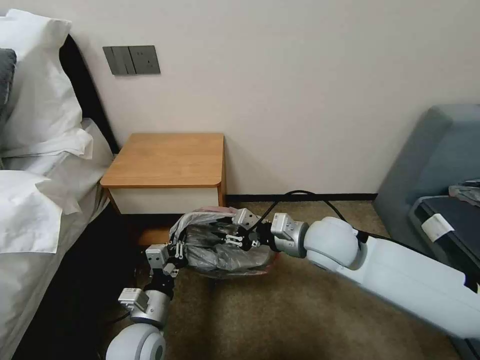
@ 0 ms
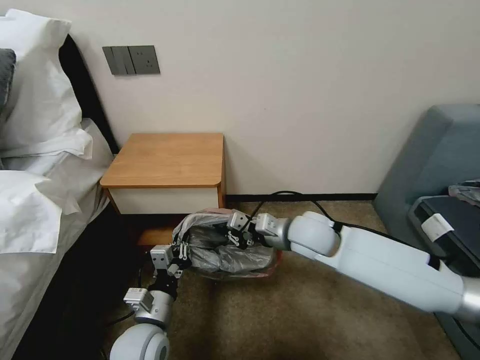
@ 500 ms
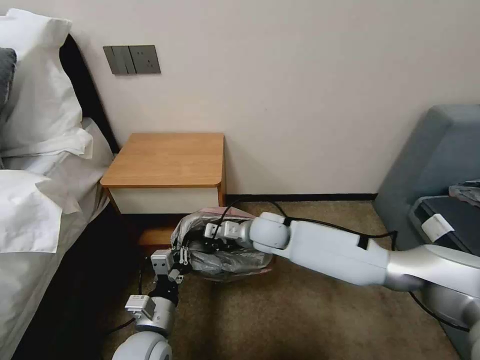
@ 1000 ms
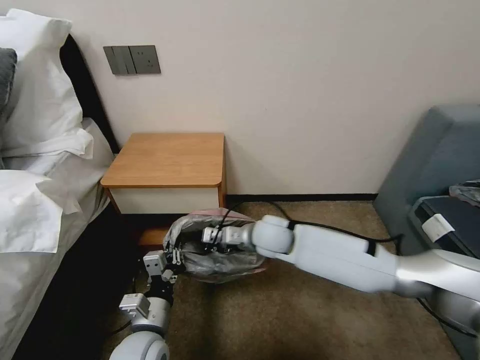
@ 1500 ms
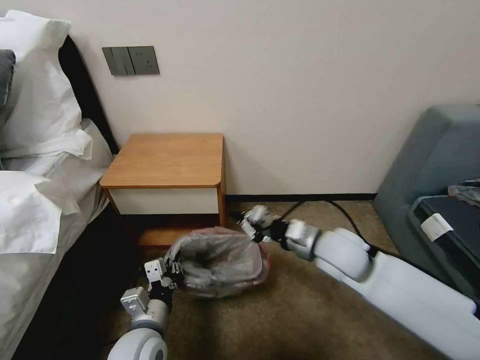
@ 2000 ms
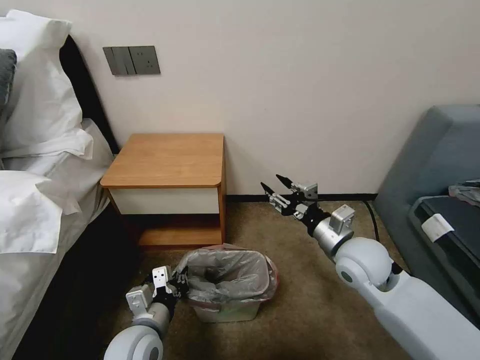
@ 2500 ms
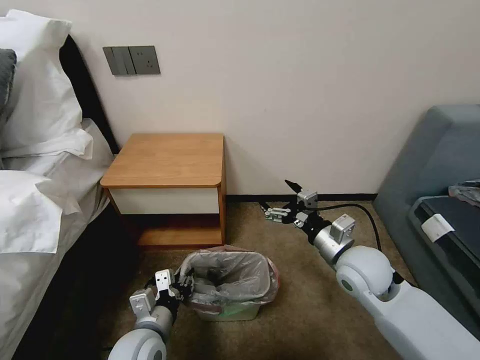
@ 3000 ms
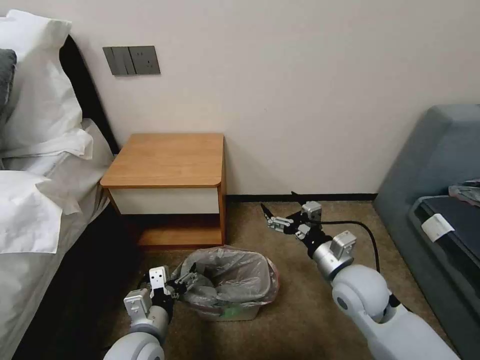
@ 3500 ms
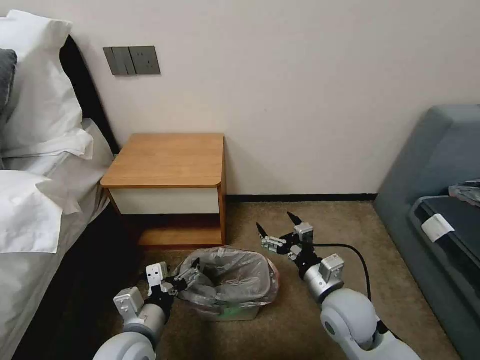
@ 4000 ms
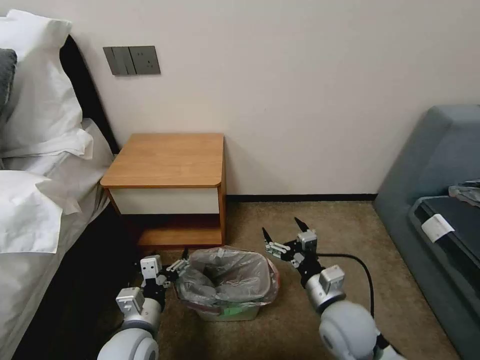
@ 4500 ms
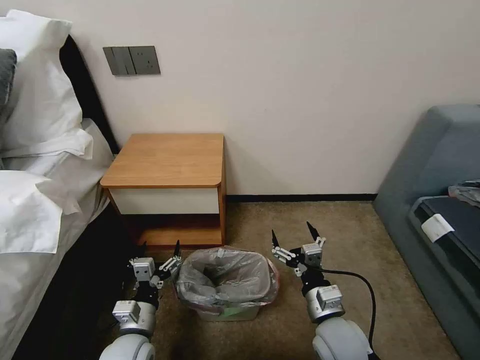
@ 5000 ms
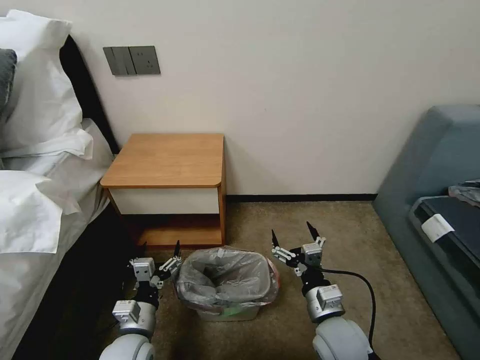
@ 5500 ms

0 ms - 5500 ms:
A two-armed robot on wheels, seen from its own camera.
Task of the whole recording: Pick up the garbage bag from the table and place it over the trash can.
0 ms - 2000 ms: The right gripper travels to the left and back again, roughly 10 cm each way.
2000 ms - 3500 ms: The right gripper ends up approximately 5 cm from where it was, and opens up. The left gripper opens.
3500 ms - 5500 ms: The left gripper goes approximately 5 cm downward. Meanwhile the right gripper is displaced backward and downward by about 10 cm.

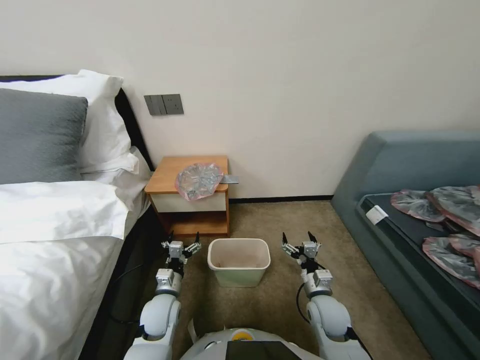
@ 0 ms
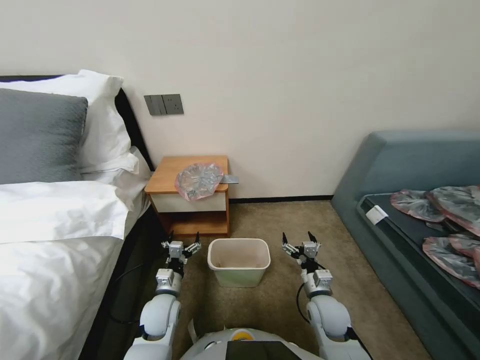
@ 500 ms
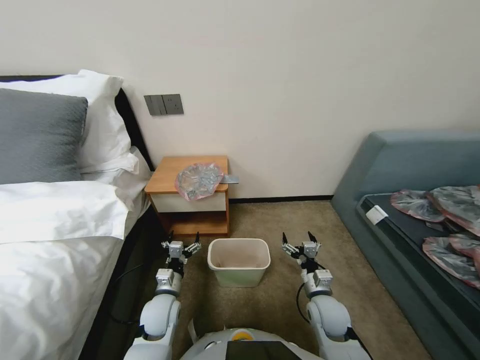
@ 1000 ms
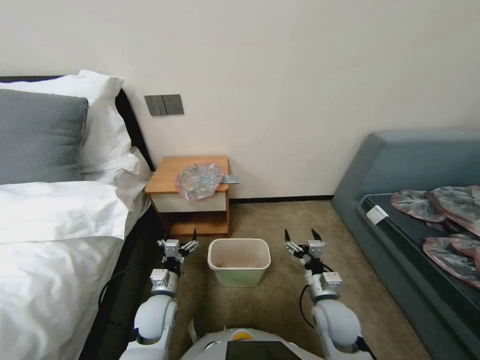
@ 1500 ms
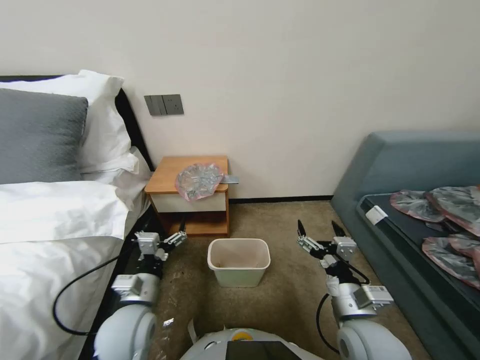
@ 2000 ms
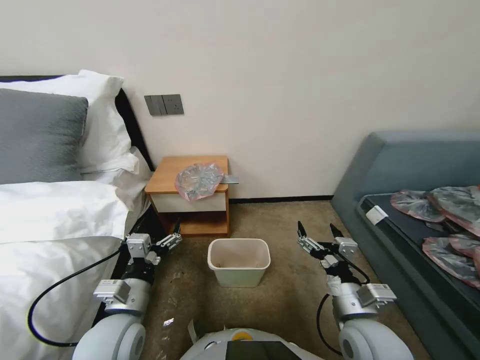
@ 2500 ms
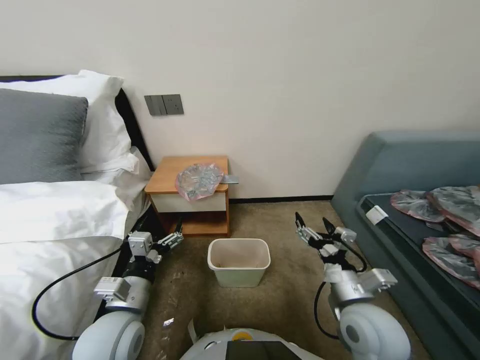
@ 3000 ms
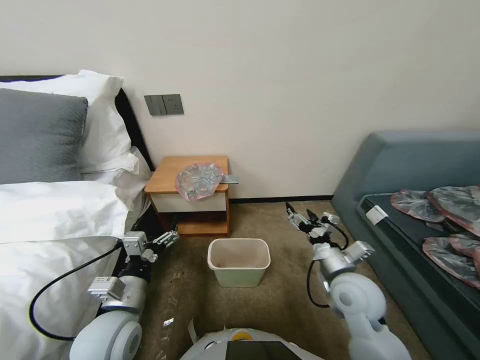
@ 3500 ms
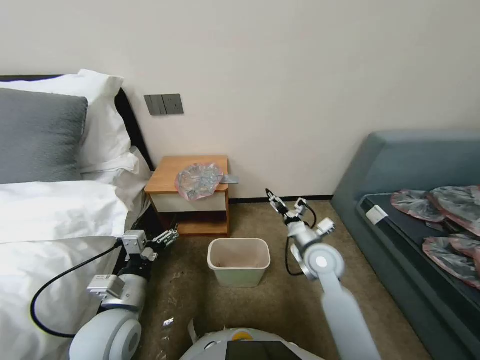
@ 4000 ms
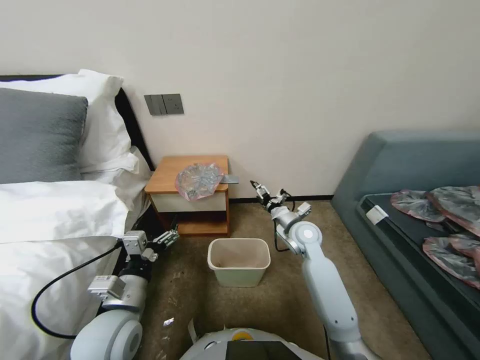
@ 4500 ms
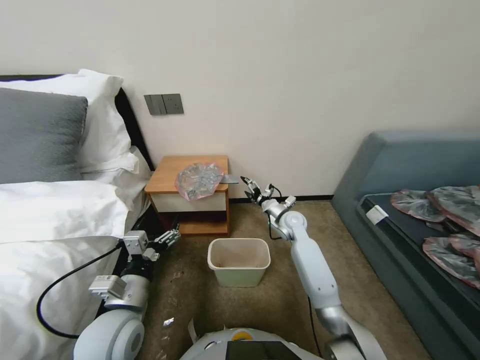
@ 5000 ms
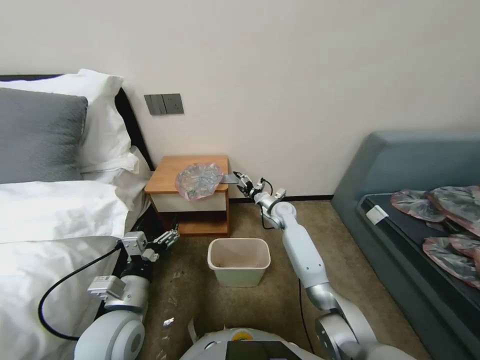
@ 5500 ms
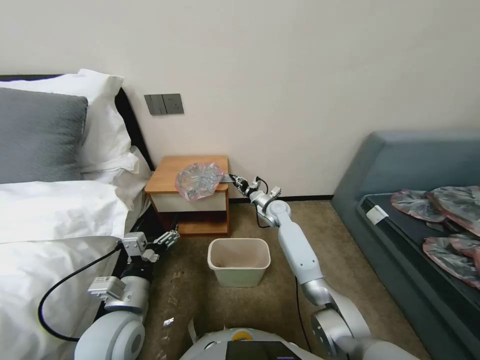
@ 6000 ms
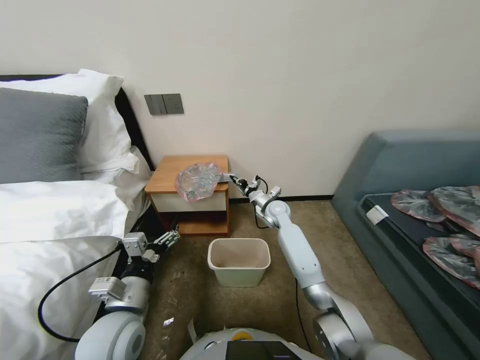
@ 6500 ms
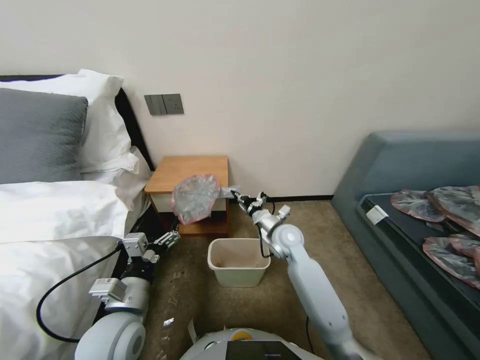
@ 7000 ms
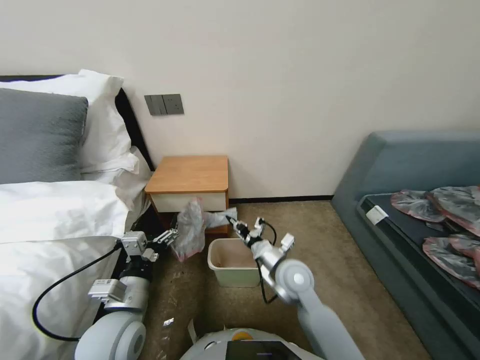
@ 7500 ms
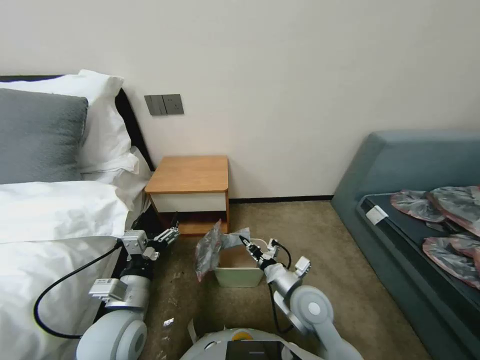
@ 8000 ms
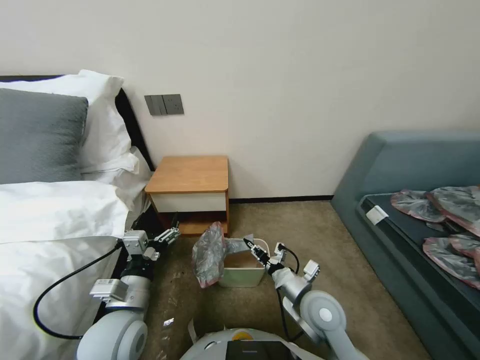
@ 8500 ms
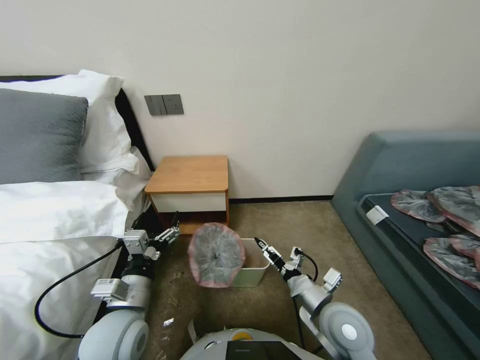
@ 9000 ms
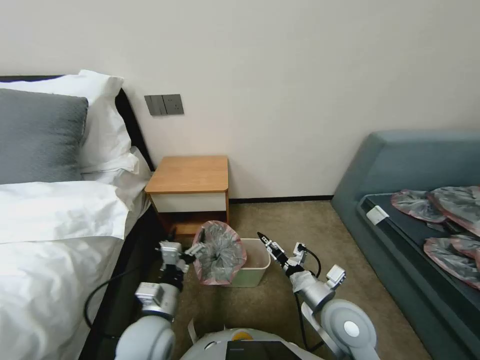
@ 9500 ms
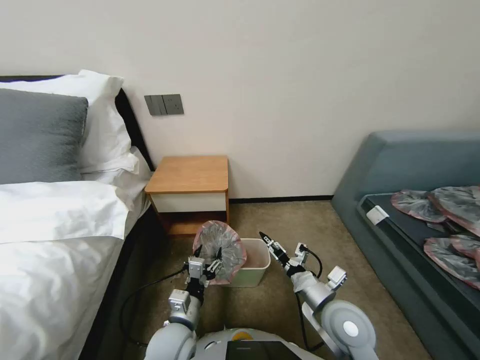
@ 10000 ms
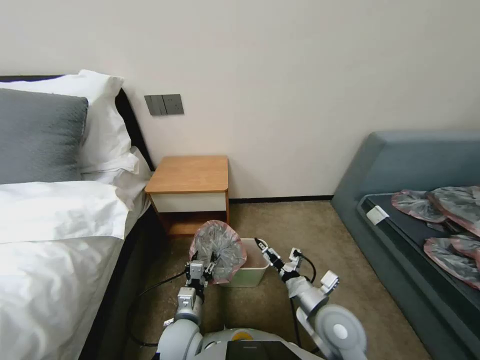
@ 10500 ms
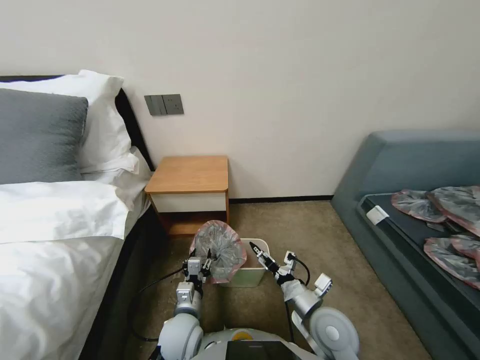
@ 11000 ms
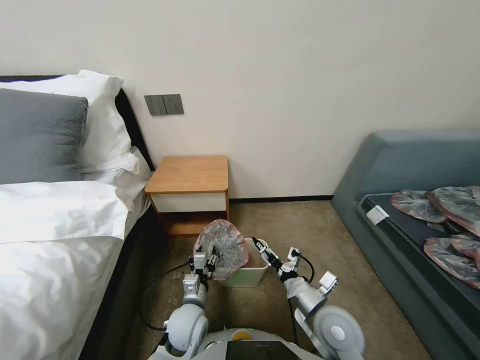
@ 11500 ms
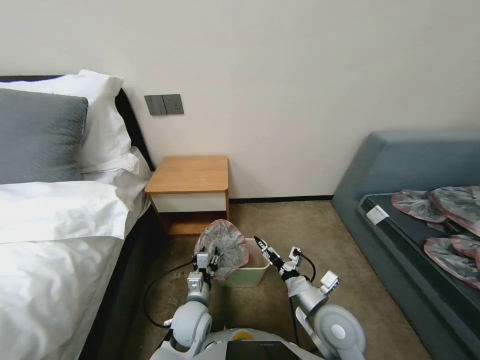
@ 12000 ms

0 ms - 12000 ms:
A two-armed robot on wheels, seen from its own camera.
Task of the whole recording: Pick up the garbage bag from the table and place it over the trash can.
2000 ms - 4000 ms: The left gripper travels upward by approximately 5 cm; the right gripper heads forward, covering about 15 cm.
4000 ms - 6000 ms: The right gripper travels forward by some 25 cm, and closes up.
6000 ms - 8000 ms: The right gripper moves backward, some 30 cm, and closes its fingers.
8000 ms - 10000 ms: The right gripper shifts some 5 cm to the right, and opens up; the left gripper moves downward and to the right, roughly 10 cm.
10000 ms - 12000 ms: The left gripper heads downward and forward, covering approximately 10 cm.

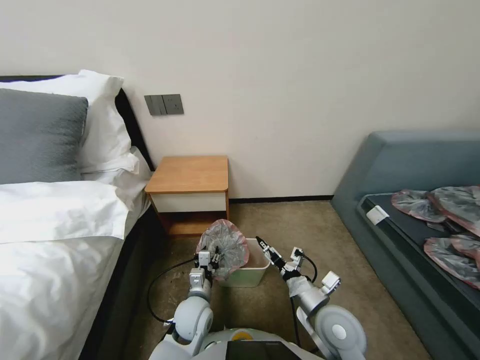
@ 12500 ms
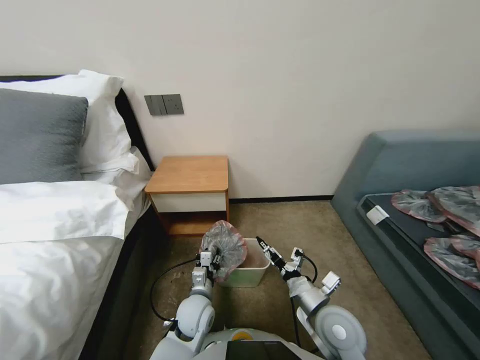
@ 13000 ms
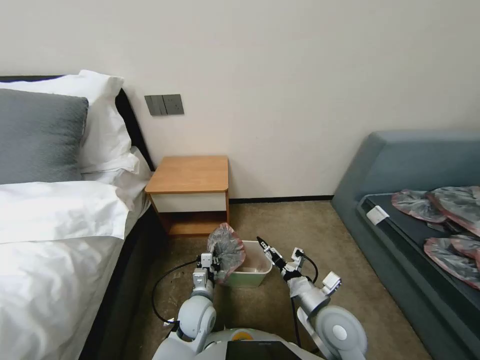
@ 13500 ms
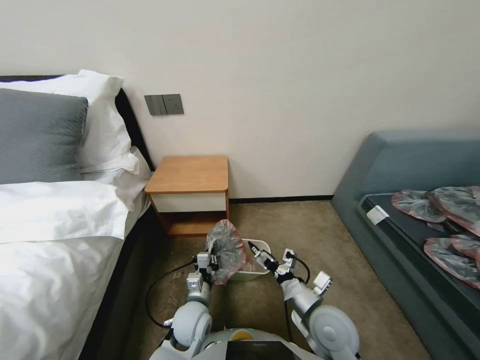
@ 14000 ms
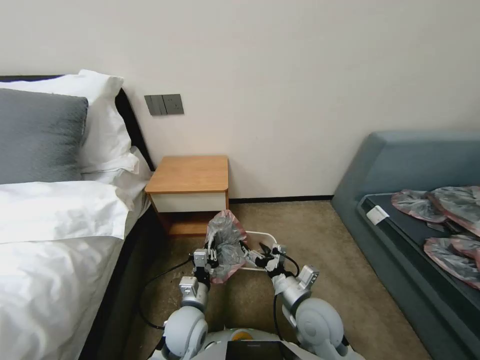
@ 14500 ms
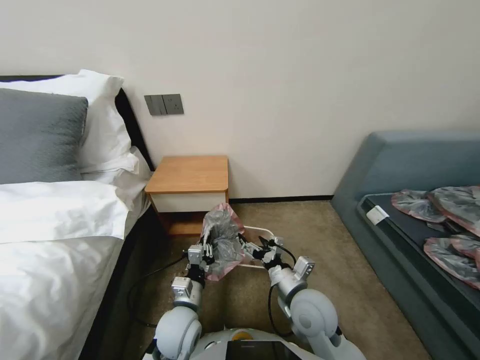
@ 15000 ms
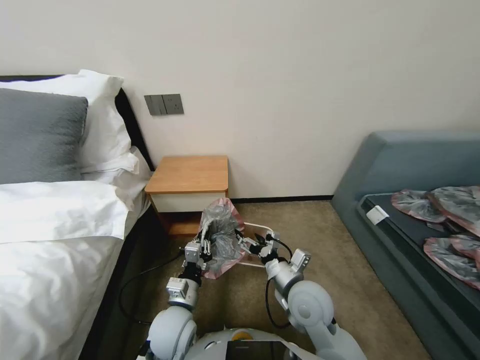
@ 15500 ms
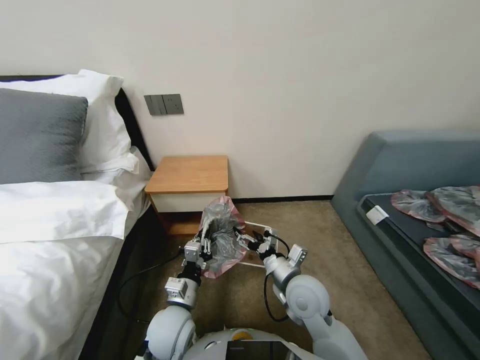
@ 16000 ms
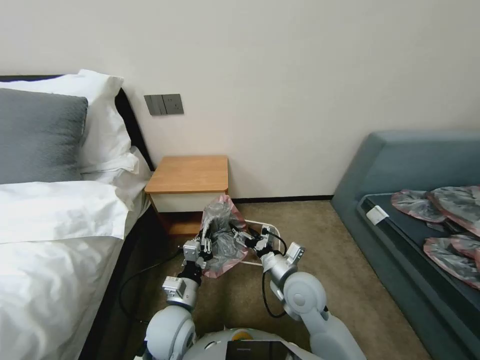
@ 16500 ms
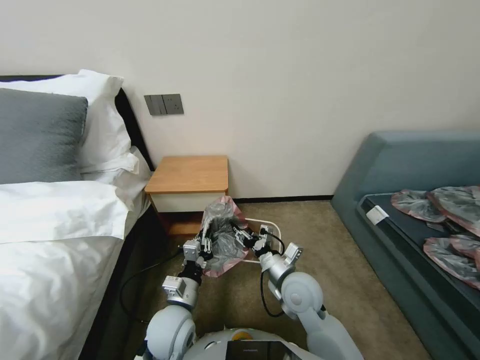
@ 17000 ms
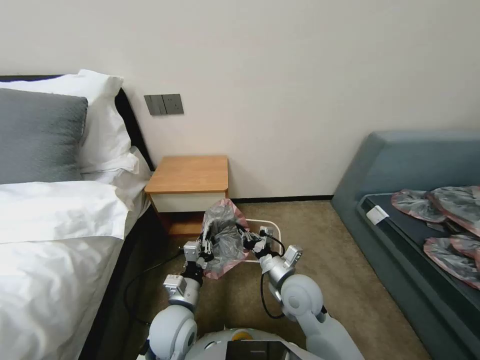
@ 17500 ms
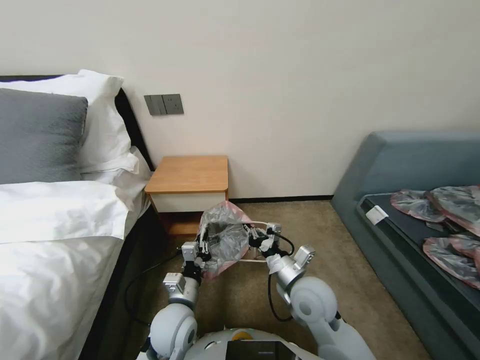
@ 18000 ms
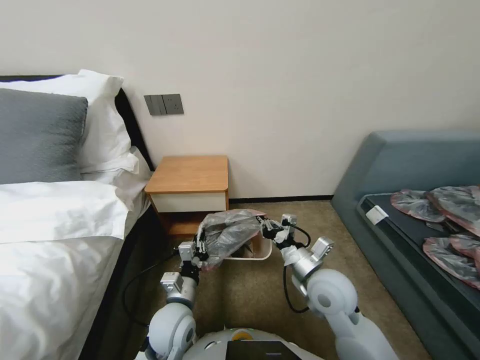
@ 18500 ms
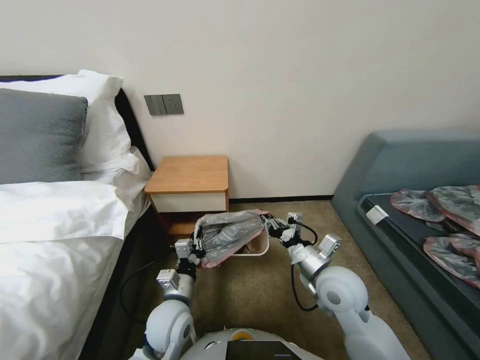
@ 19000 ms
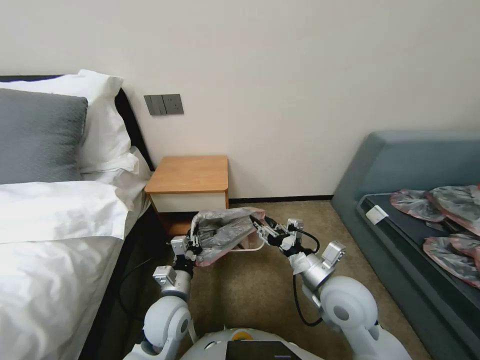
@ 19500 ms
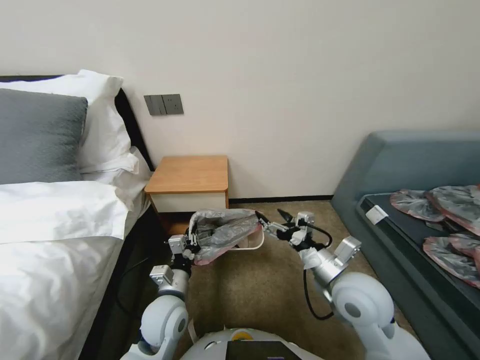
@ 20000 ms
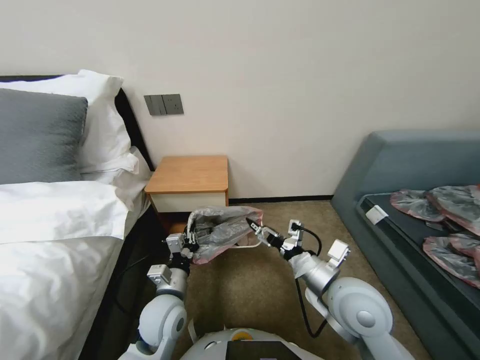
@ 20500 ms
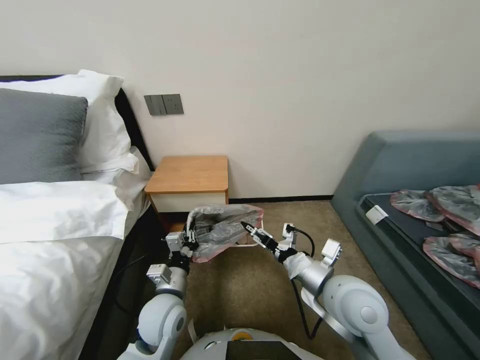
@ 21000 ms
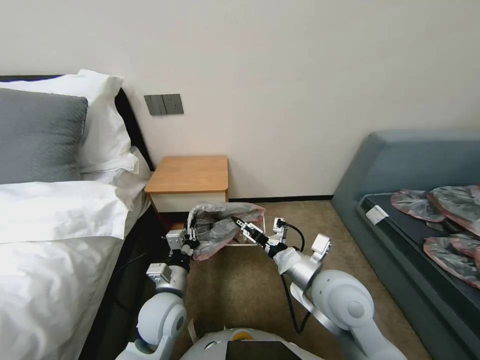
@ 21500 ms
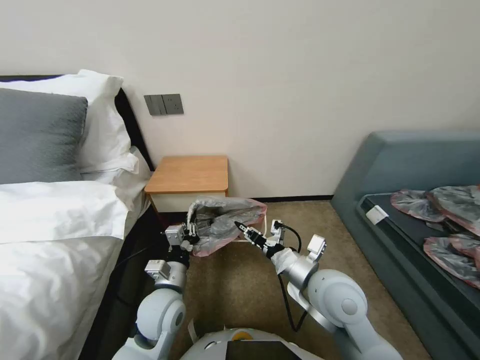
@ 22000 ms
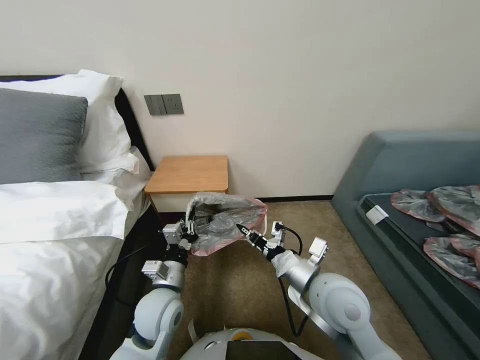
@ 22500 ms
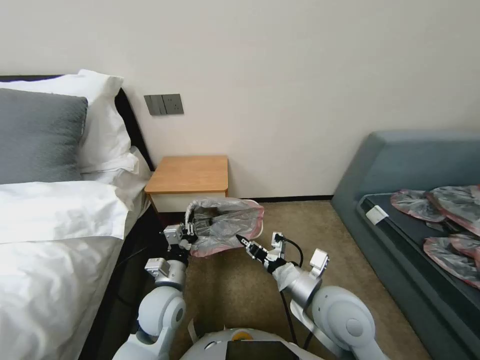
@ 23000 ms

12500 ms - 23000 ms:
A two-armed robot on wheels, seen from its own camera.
Task of the whole recording: Pick up the garbage bag from the table and place it over the trash can.
12500 ms - 14500 ms: The left gripper closes up.
14500 ms - 16500 ms: The left gripper moves roughly 5 cm, while the right gripper travels forward by roughly 5 cm.
16500 ms - 19000 ms: The right gripper goes approximately 5 cm to the right, and closes up.
19000 ms - 21000 ms: The right gripper changes place by some 5 cm, and opens up.
21000 ms - 23000 ms: The right gripper closes its fingers.
